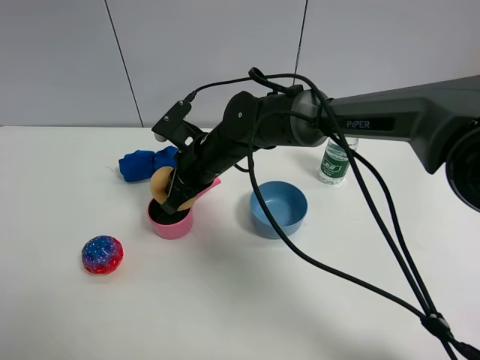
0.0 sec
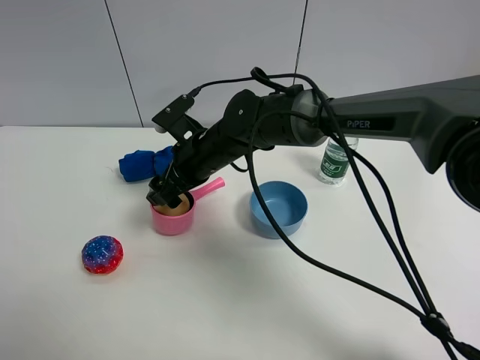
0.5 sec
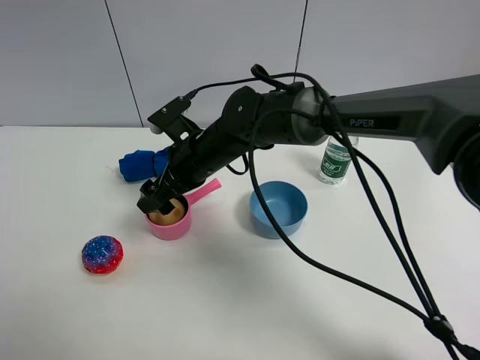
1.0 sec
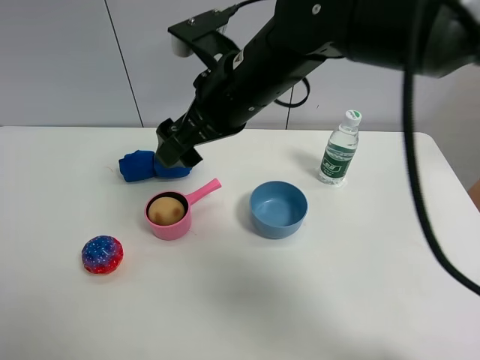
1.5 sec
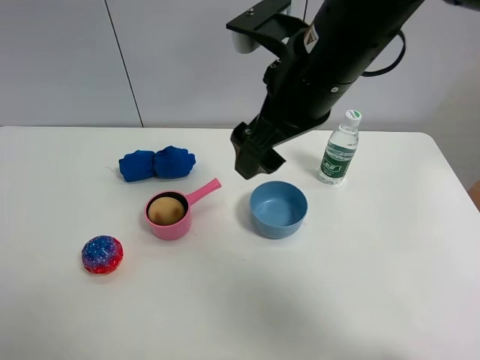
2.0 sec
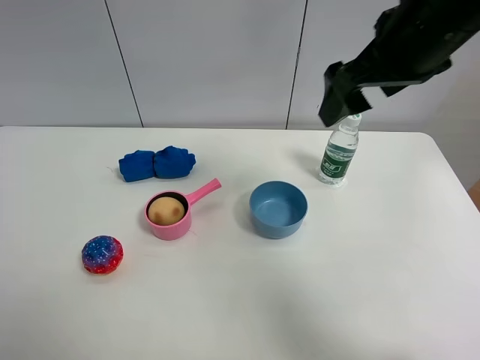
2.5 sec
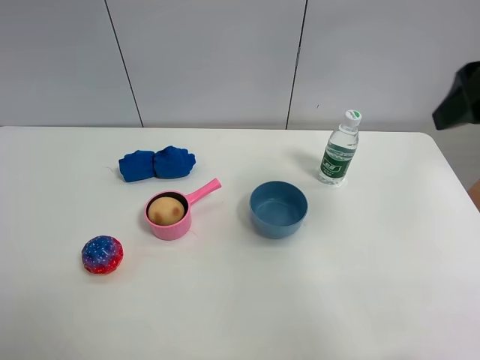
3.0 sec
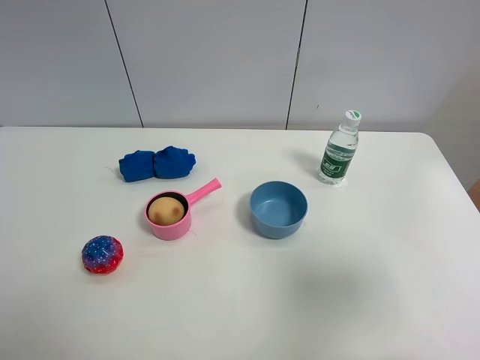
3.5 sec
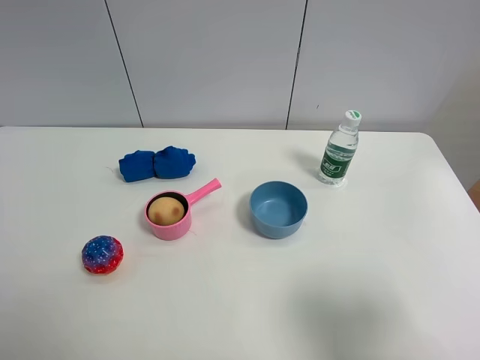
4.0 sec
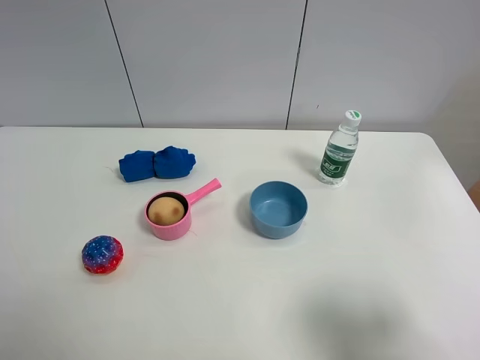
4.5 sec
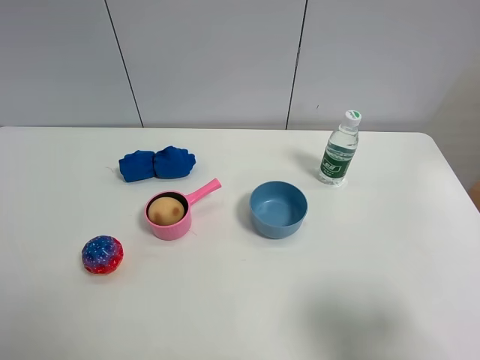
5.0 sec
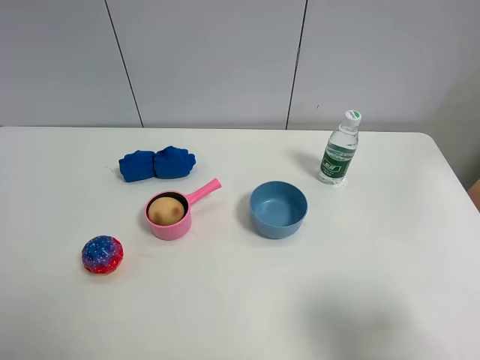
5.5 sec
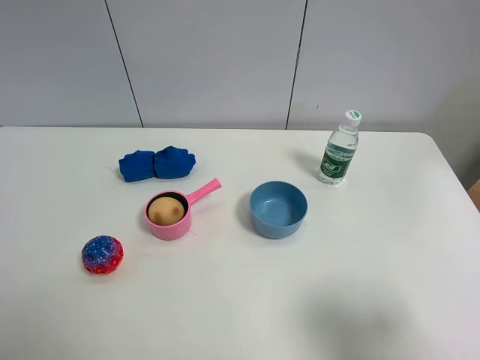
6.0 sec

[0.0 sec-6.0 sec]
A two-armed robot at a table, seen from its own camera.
Task of the whole recording: the gripper move the object.
0.0 sec to 2.0 sec: The right gripper shifts approximately 25 cm upward, to the right and backward, and opens its fingers.
2.0 sec to 4.0 sec: The right gripper shifts roughly 35 cm backward and to the right.

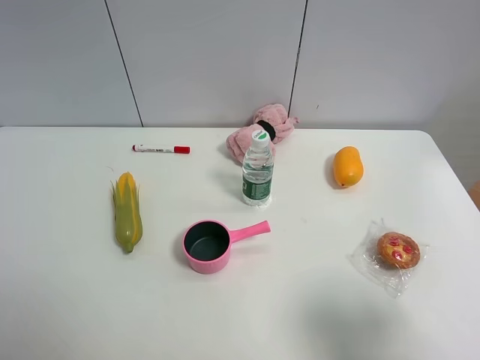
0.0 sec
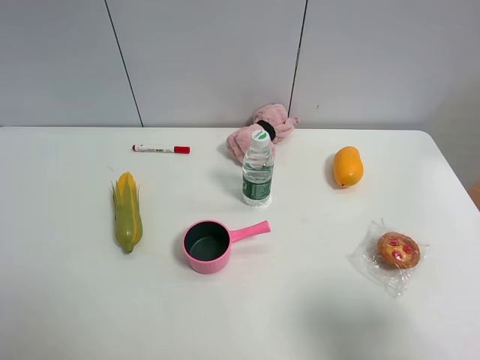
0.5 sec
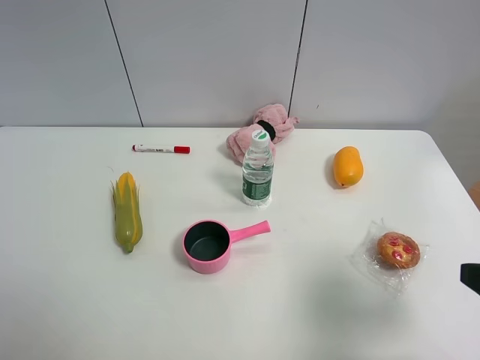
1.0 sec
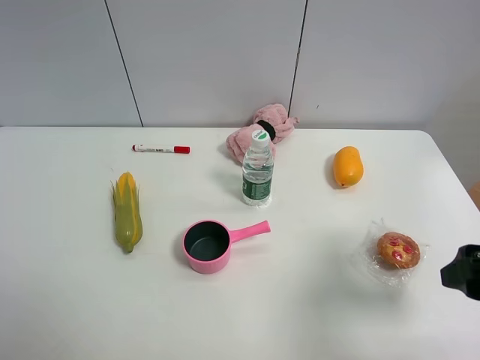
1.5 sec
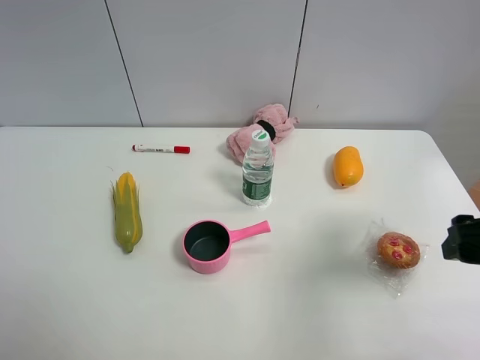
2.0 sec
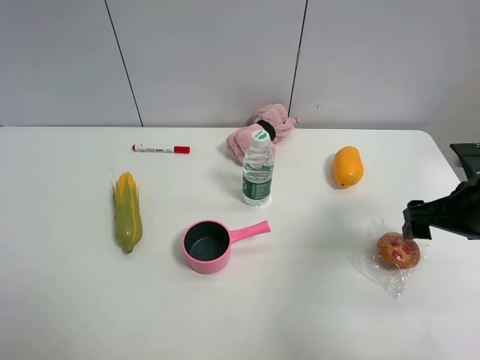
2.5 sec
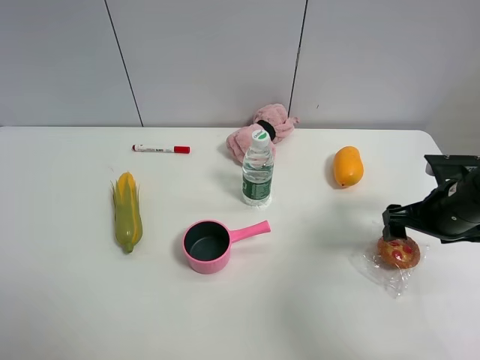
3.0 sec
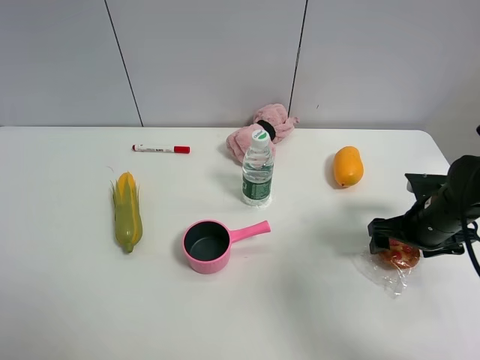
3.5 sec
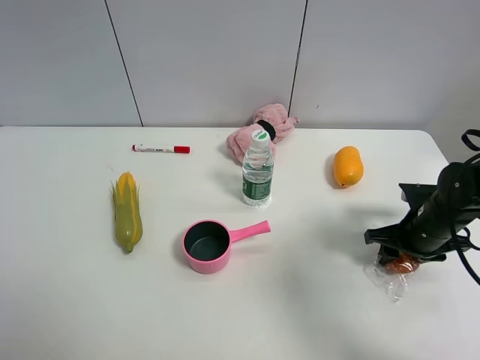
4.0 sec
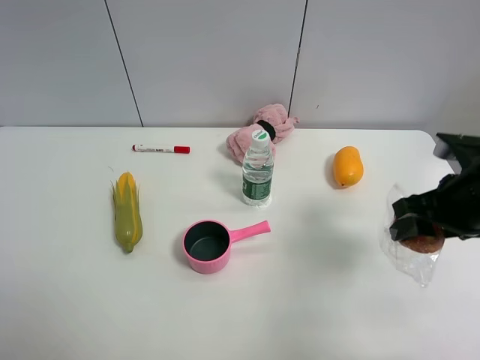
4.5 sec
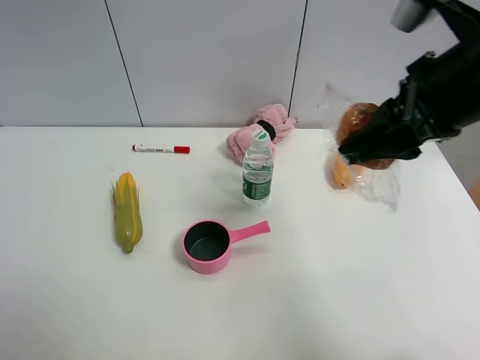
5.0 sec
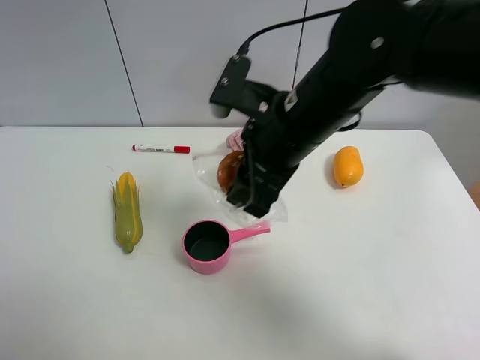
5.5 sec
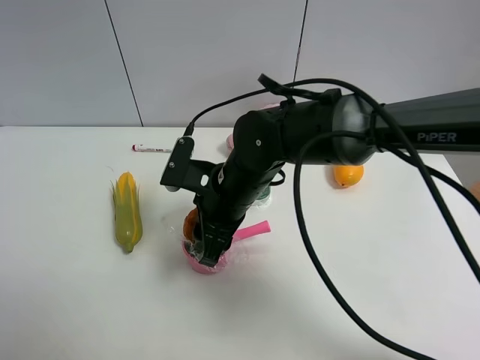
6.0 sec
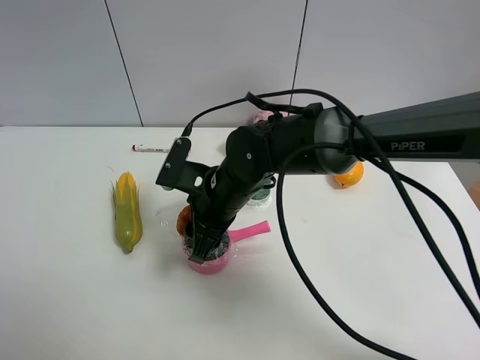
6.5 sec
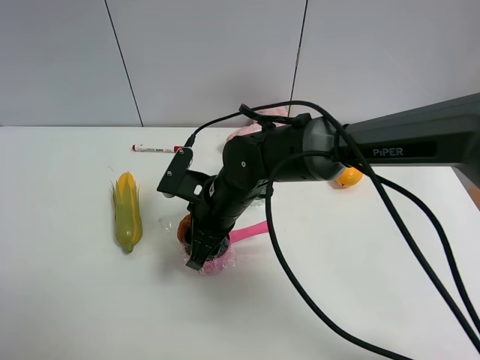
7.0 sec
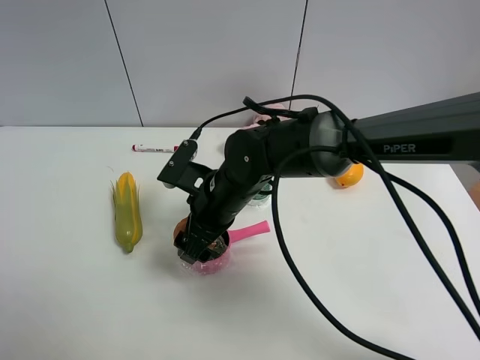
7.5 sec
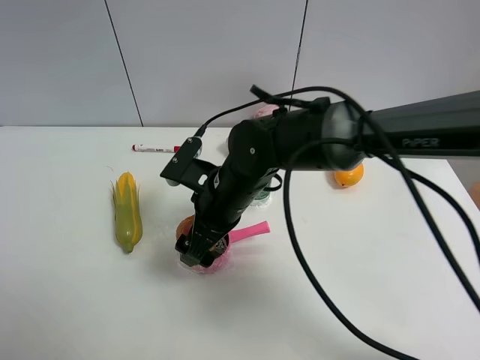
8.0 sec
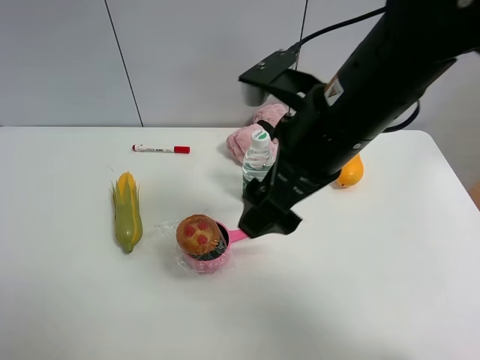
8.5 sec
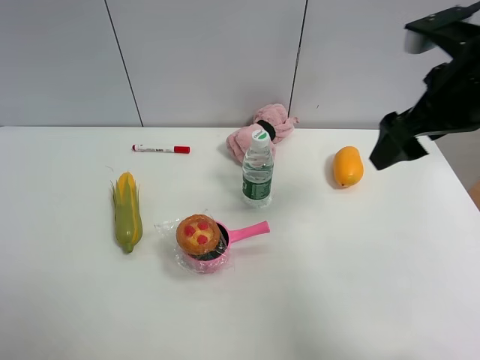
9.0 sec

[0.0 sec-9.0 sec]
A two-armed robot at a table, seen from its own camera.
Task of the whole recording: the gripper move the object.
Step, 0.0 sec to 3.5 sec: Grasp the egg tart with the right gripper.
Step, 4.0 sec to 8.0 sec: Place the egg tart into the pink pot with the right gripper.
0.0 sec to 2.0 sec: The right gripper travels forward by approximately 15 cm.
2.0 sec to 4.5 sec: The right gripper shifts about 5 cm forward, travels downward and back again, roughly 15 cm each way, and closes.
4.5 sec to 7.0 sec: The right gripper is displaced to the left by about 30 cm.
7.0 sec to 9.0 sec: The right gripper shifts roughly 30 cm to the right and upward, and opens up.

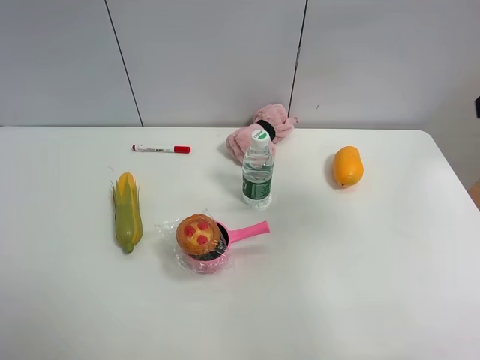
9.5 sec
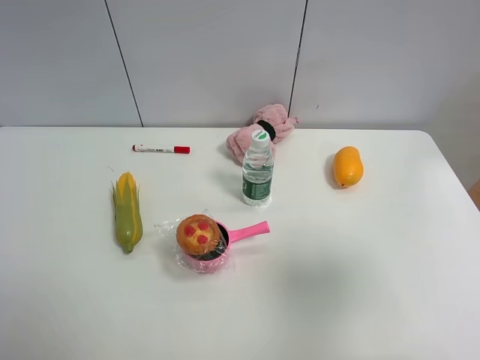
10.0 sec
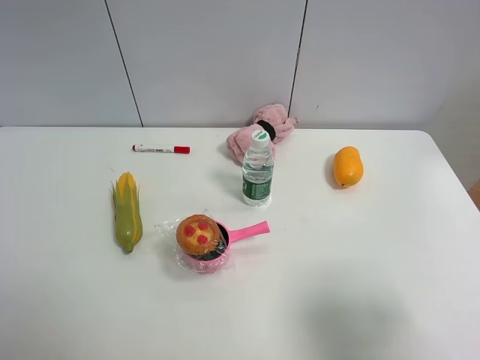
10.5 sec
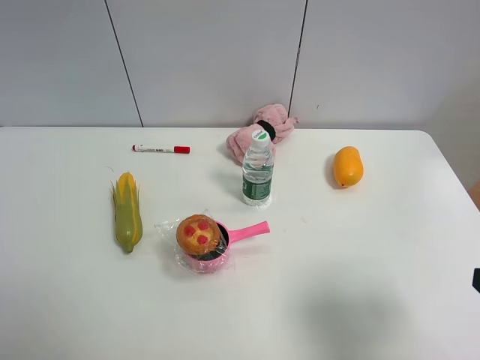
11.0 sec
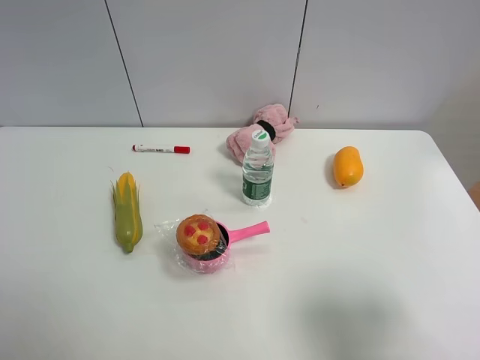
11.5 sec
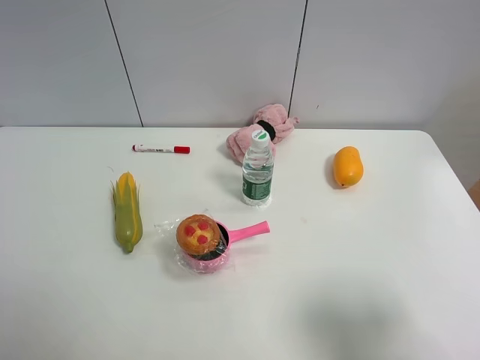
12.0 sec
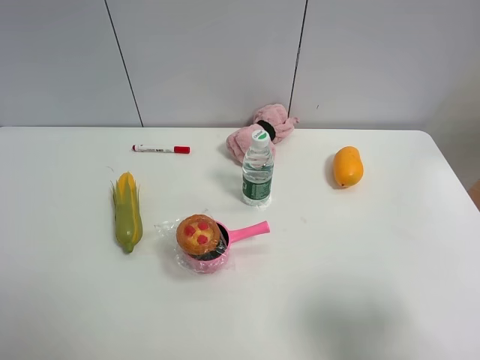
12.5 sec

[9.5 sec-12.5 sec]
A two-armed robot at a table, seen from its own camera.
Task of the whole recording: the gripper move the object.
9.5 sec to 11.0 sec: The right gripper travels downward and backward by roughly 20 cm.

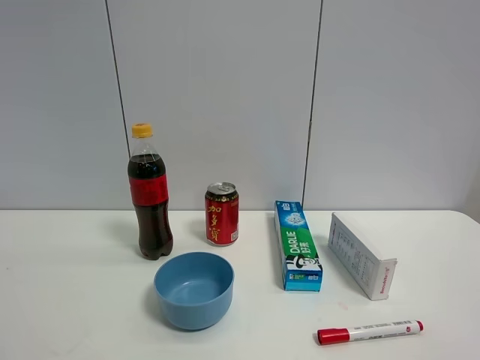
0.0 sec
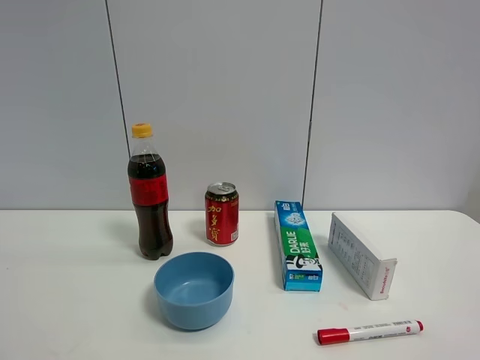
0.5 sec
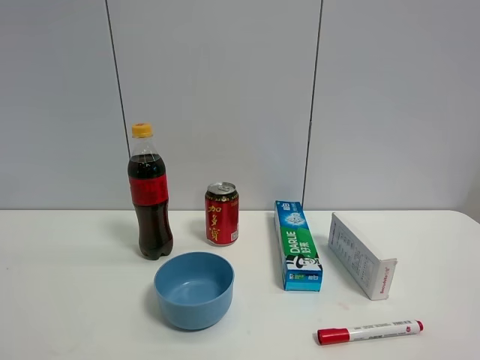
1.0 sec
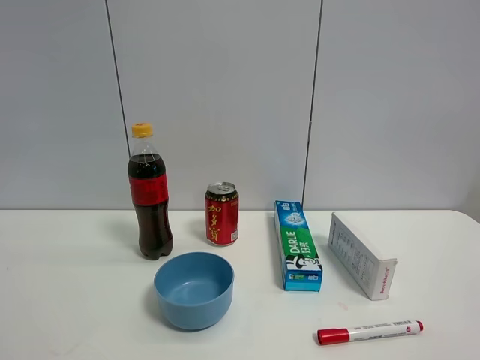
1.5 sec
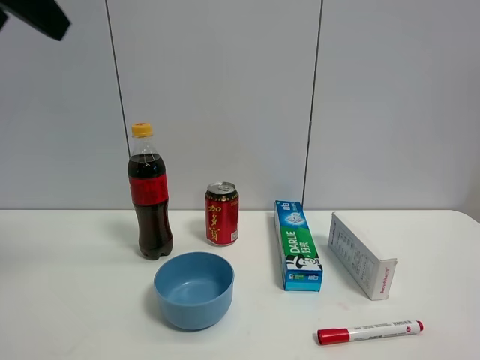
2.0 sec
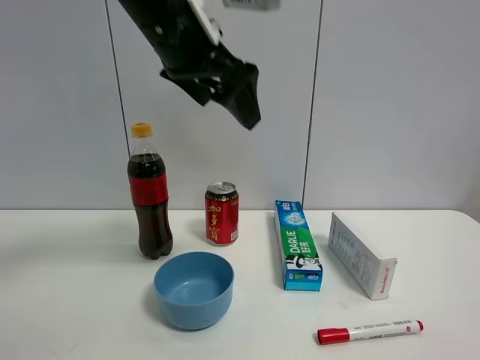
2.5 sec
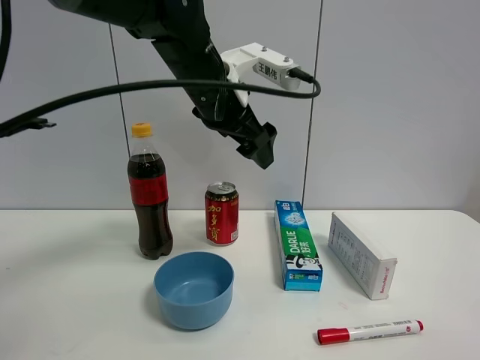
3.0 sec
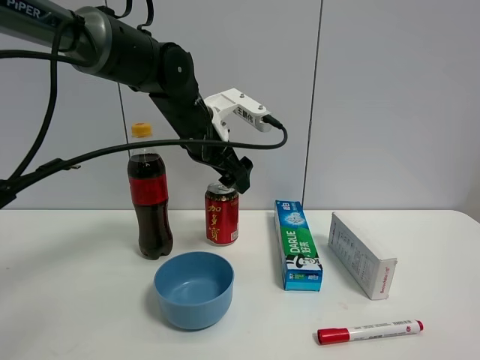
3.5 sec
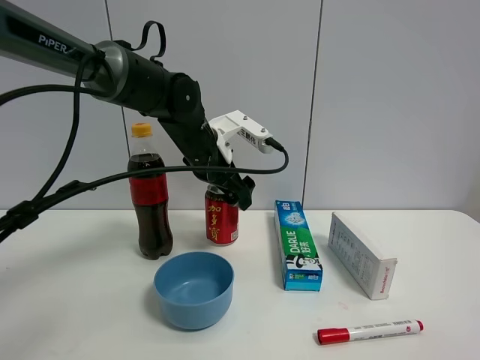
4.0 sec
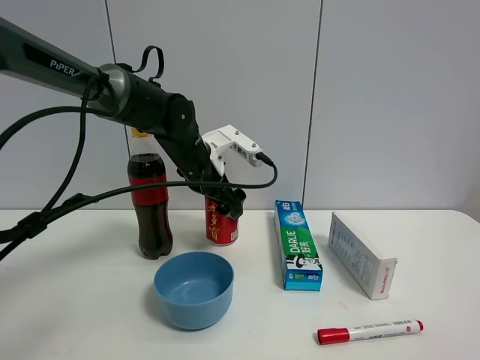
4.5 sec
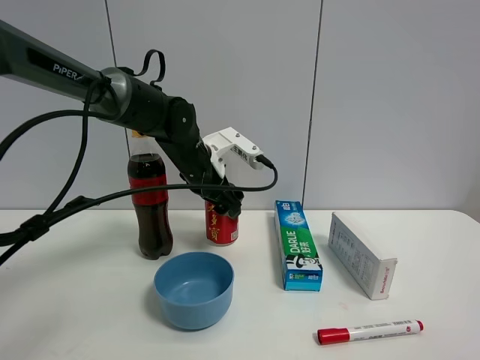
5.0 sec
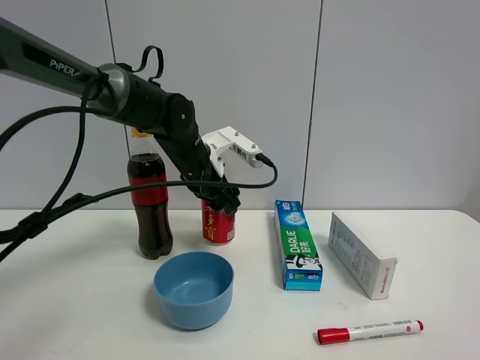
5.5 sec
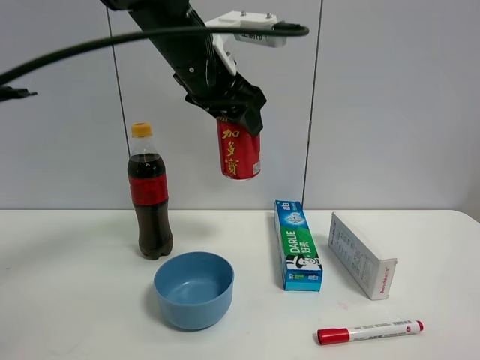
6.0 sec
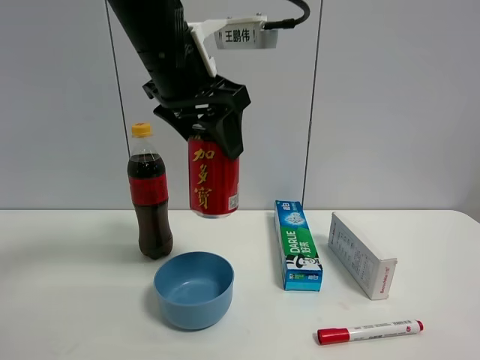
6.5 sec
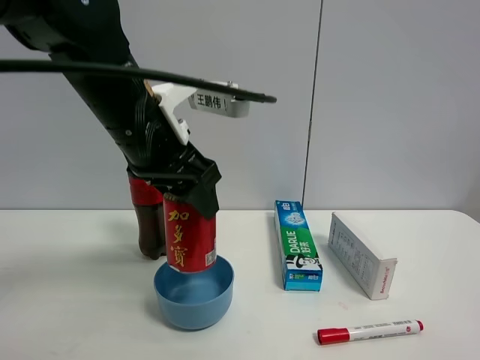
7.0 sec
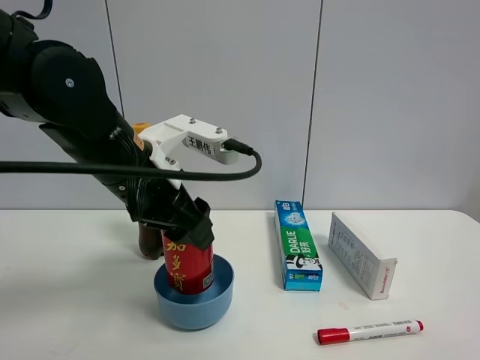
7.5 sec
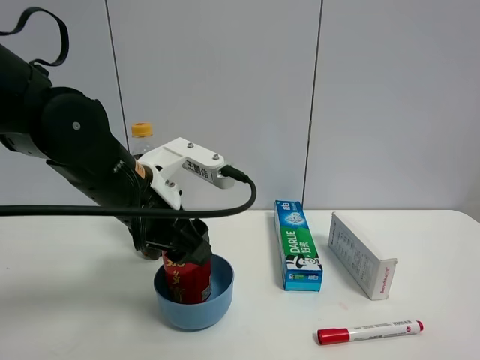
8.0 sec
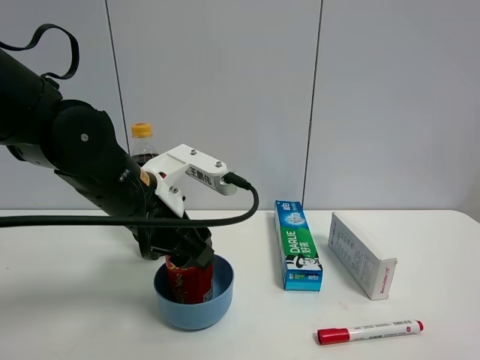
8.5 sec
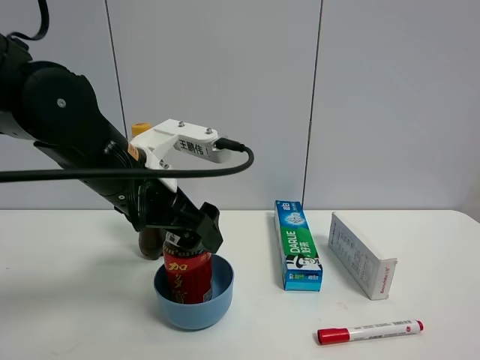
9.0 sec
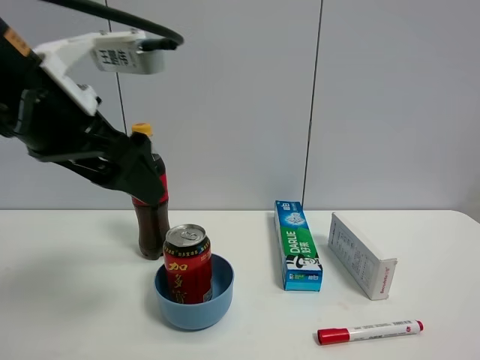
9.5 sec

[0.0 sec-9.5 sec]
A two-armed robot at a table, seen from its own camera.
Task of the whole recording: the gripper move the object.
Step, 0.0 sec to 5.0 sec: Grasp the Jia Duo Bao with the left gripper.
Step, 5.5 sec to 8.5 sec: Place the Jia Duo Bao into the blue bowl with the left gripper.
0.0 sec to 2.0 sec: The left gripper travels forward and upward by roughly 30 cm.
2.0 sec to 4.0 sec: The left gripper heads downward, forward and to the right, covering about 35 cm.
4.0 sec to 5.5 sec: The left gripper closes up.
5.5 sec to 7.5 sec: The left gripper shifts some 15 cm backward.
7.5 sec to 9.5 sec: The left gripper heads upward and to the left, covering roughly 10 cm, and opens.
